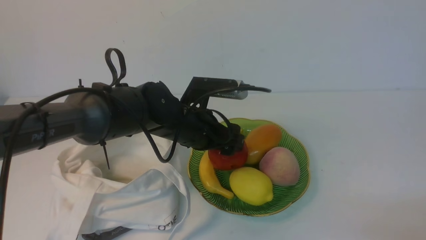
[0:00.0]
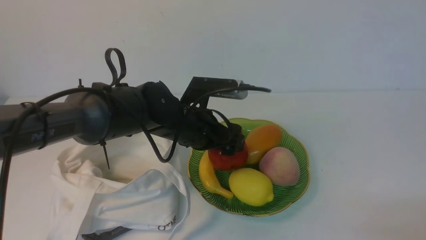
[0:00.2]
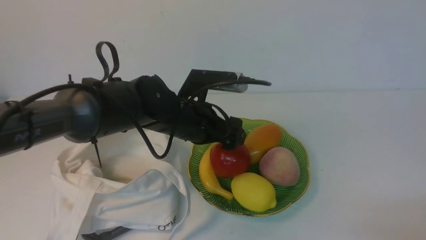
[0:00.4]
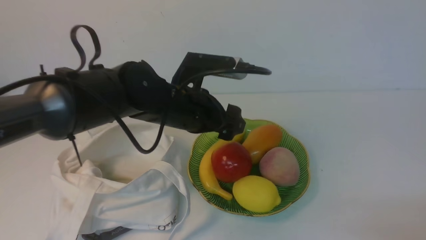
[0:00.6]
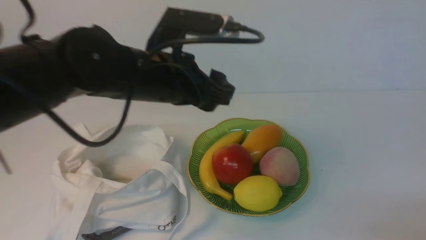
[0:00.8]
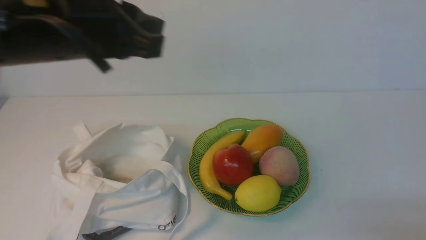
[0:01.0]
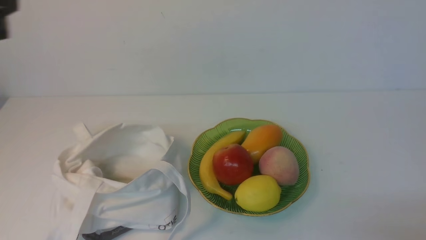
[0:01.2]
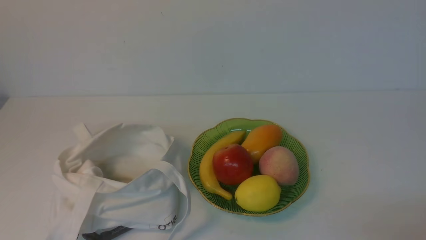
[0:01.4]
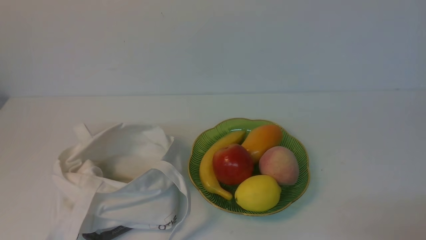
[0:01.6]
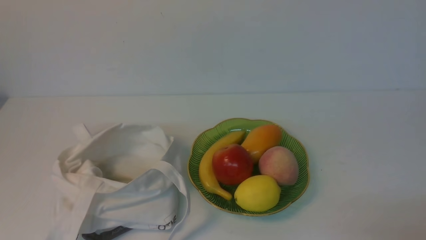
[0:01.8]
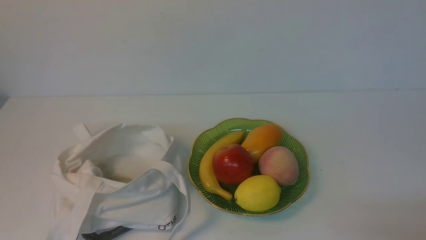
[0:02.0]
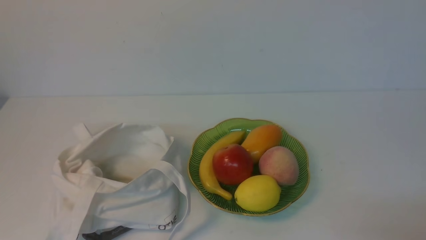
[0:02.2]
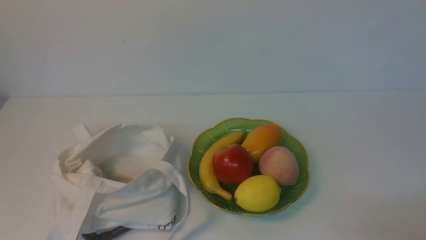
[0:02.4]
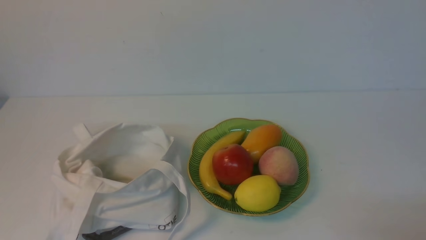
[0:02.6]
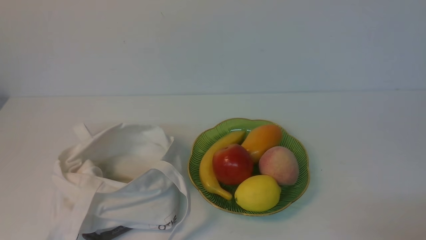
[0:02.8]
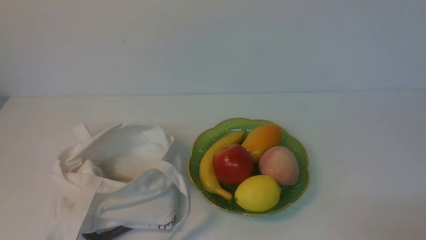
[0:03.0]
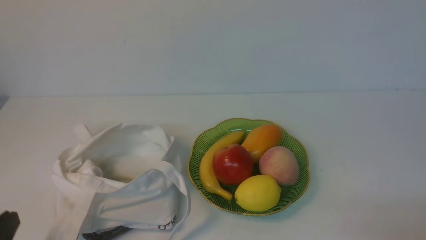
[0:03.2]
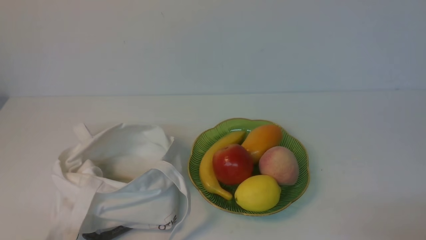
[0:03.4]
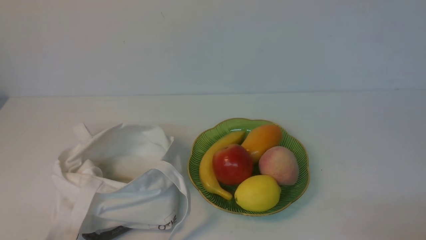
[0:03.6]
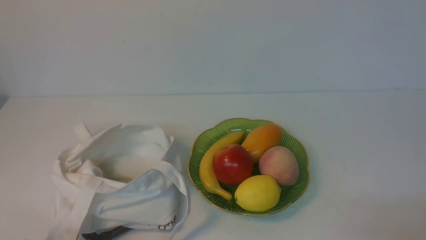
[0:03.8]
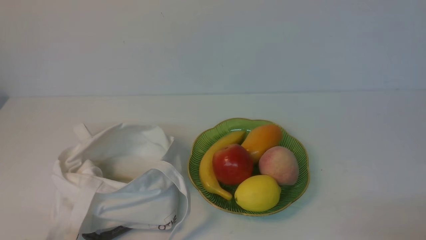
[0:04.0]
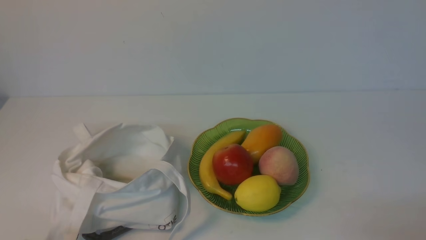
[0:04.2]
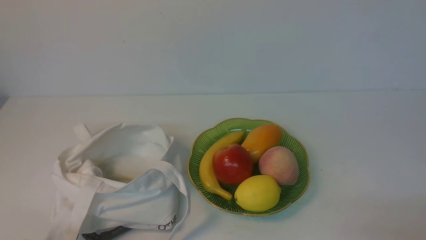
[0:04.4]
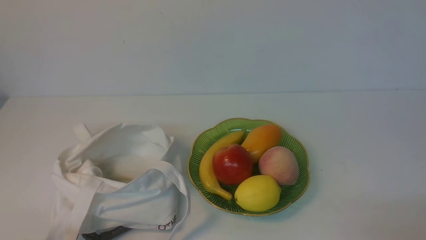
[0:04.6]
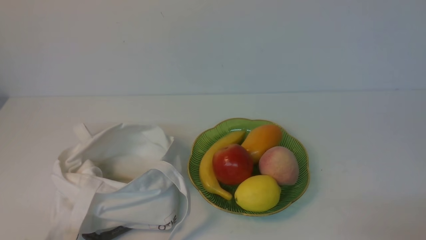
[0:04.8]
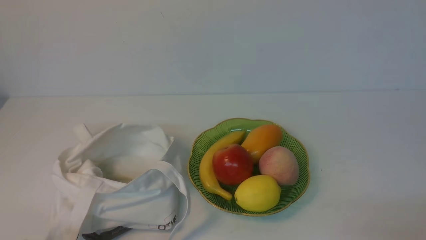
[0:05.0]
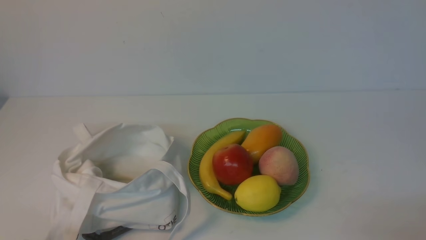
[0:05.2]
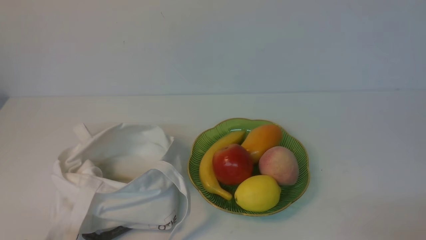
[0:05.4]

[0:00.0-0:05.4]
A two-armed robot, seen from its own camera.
0:00.0 to 0:01.4: The left gripper is displaced backward, upward and to the left by about 40 cm, and closes its fingers.
0:04.0 to 0:05.4: Both grippers stay put.
